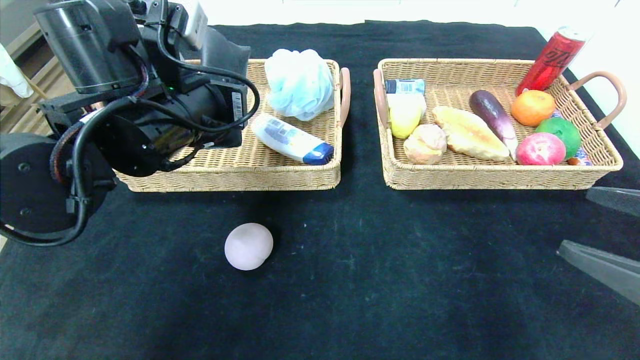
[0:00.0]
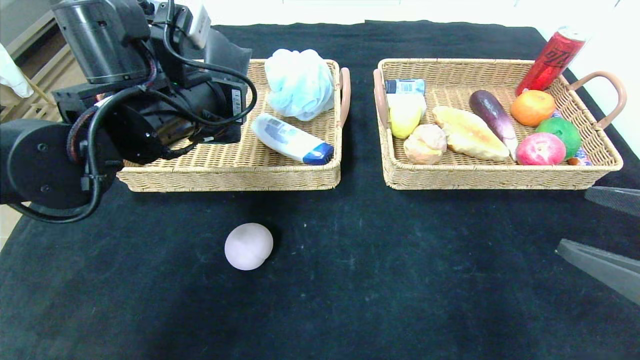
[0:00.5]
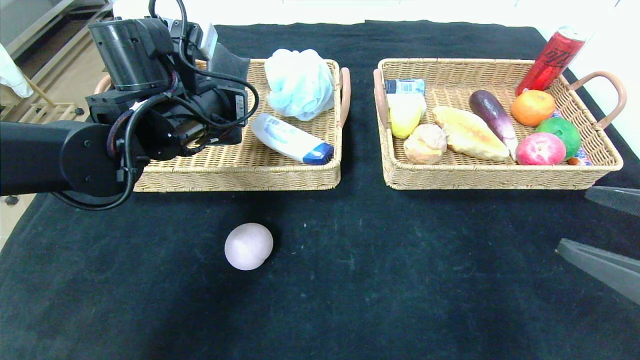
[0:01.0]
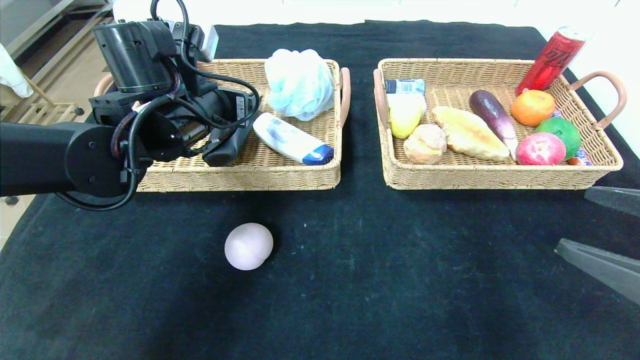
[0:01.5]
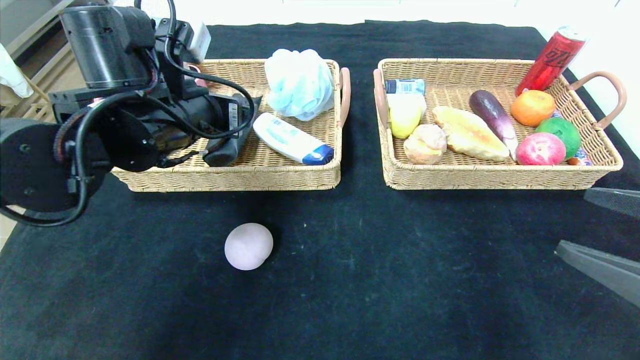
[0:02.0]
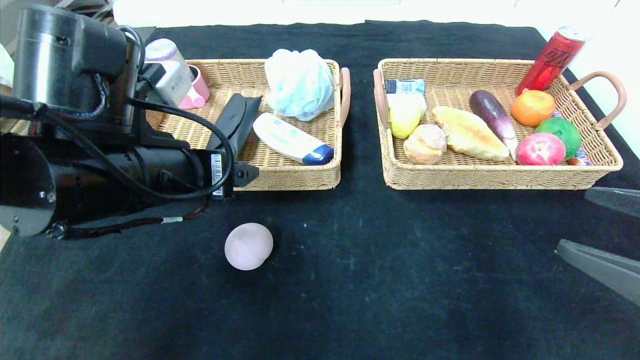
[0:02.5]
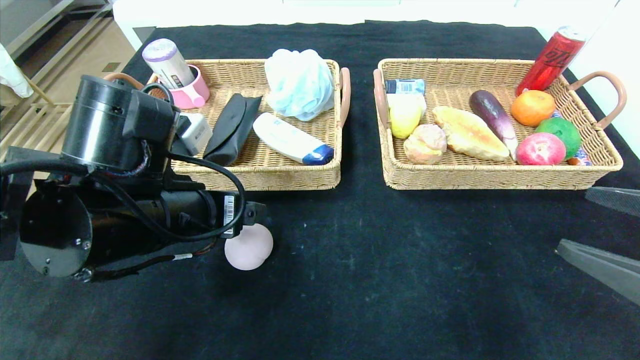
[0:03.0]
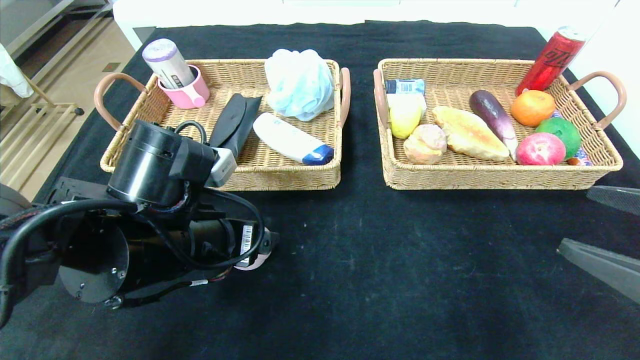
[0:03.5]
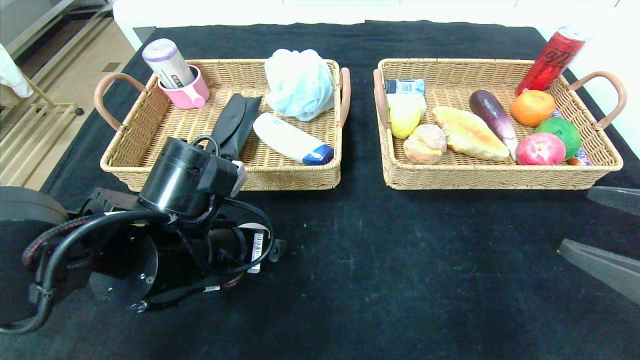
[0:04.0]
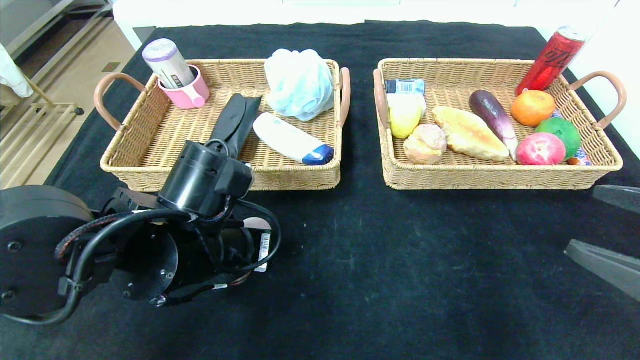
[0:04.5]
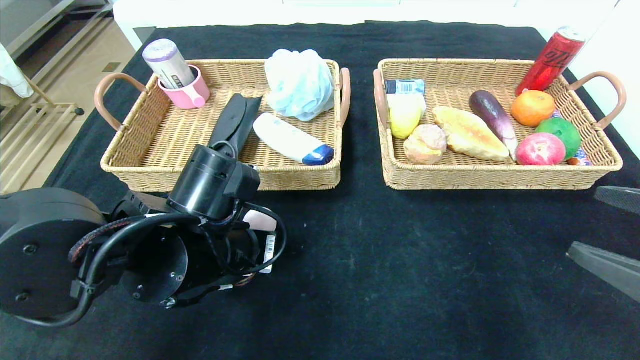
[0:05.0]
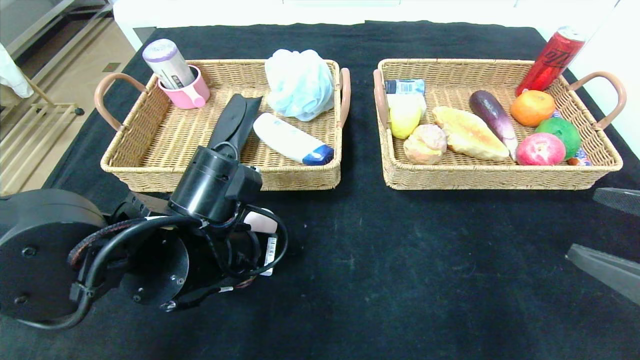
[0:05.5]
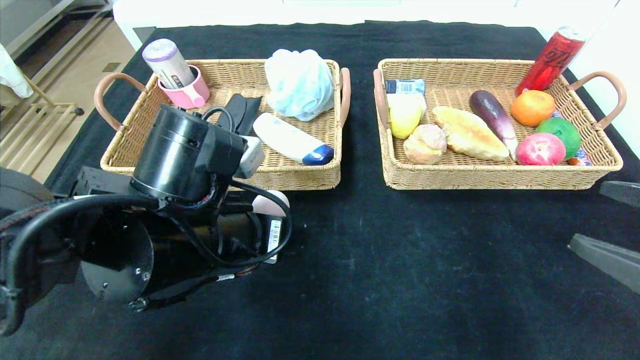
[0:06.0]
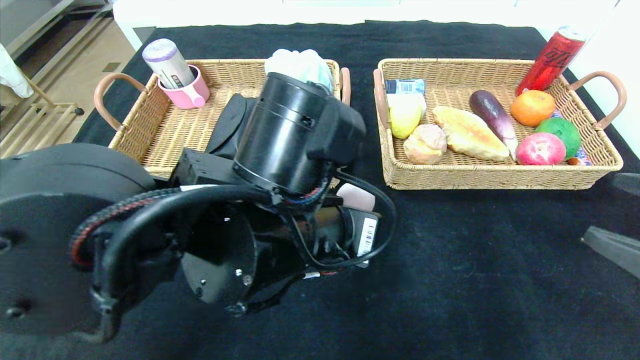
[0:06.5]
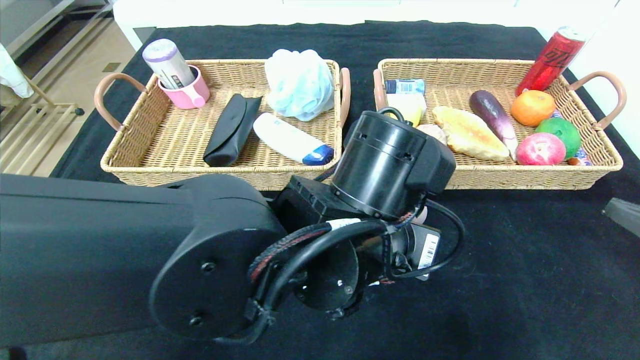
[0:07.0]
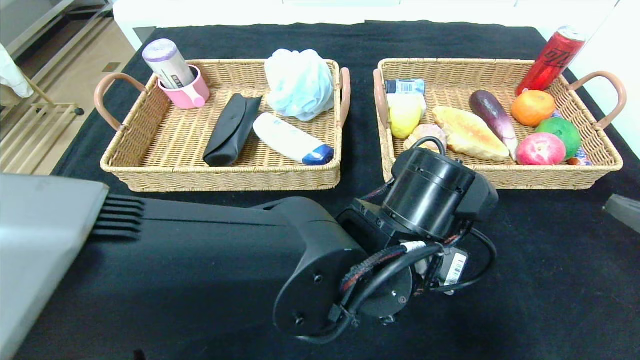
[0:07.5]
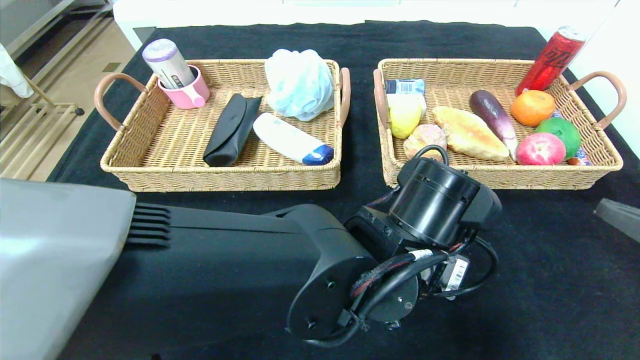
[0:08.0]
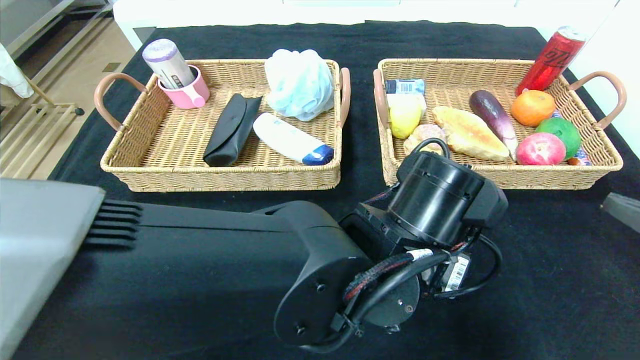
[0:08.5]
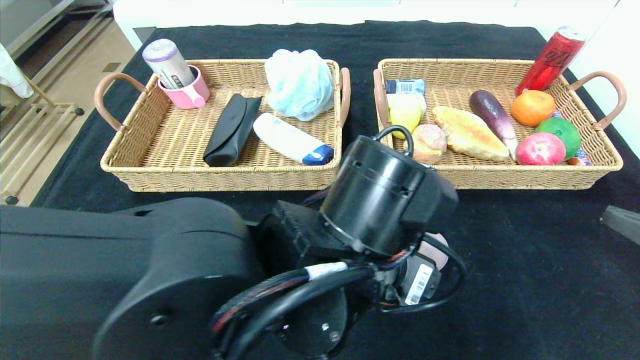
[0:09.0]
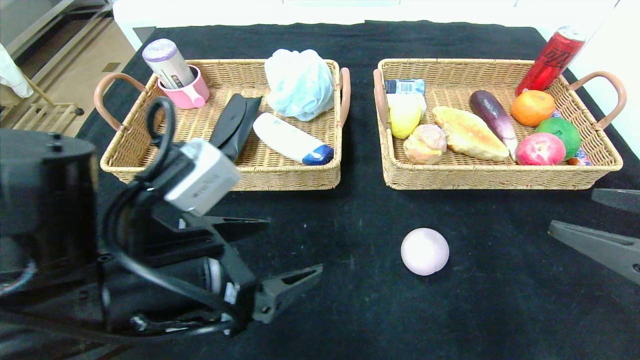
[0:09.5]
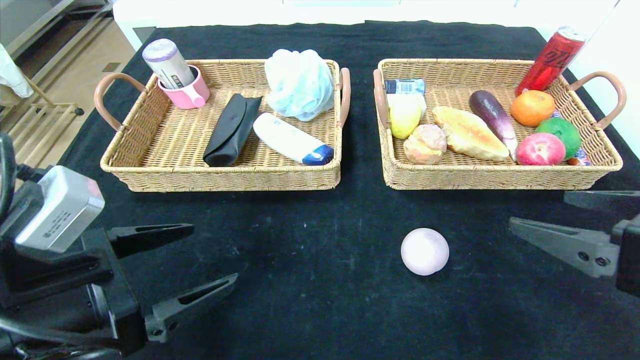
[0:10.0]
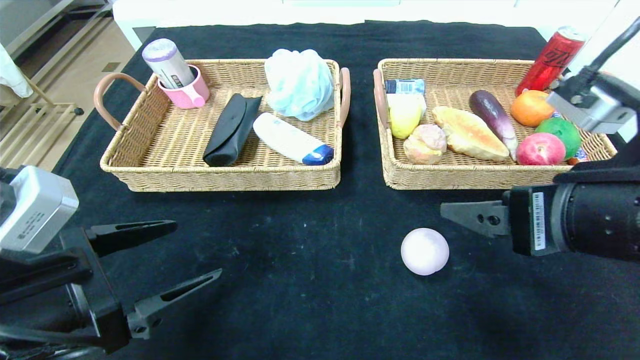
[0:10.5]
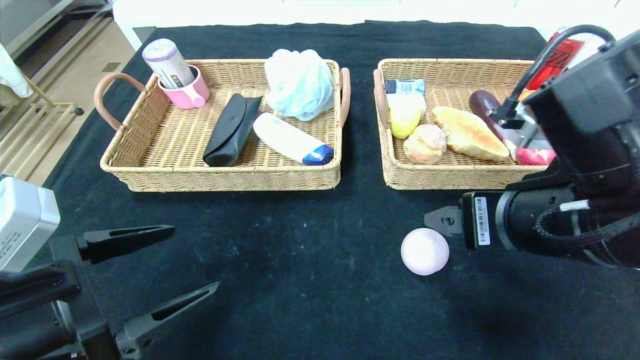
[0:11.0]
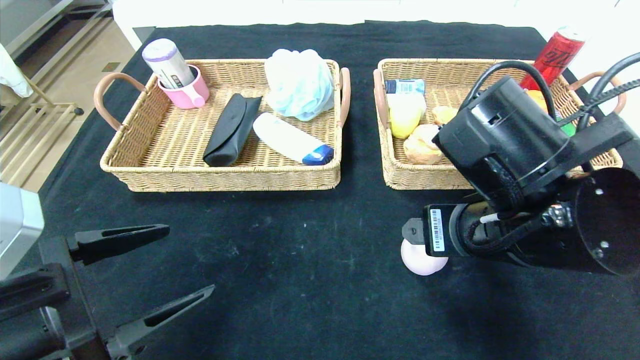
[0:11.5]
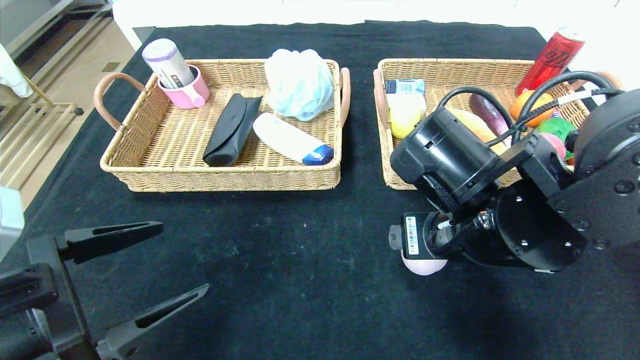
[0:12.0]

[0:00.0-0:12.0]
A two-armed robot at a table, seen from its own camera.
Step, 0:00.0 to 0:02.5: Pick up the glasses case and put it in the left basket.
Step, 0:03.0 to 0:09.0: Place the peach in the center of the table.
0:00.0 to 0:02.0: The left gripper opens up.
0:02.0 to 0:04.0: The left gripper goes about 10 cm downward and backward.
0:04.0 to 0:06.0: The left gripper closes its fingers.
0:06.0 to 0:08.0: The left gripper moves to the right, some 20 cm, and opens its fingers.
0:08.0 to 0:10.0: The right gripper heads to the left, covering some 5 cm, while the left gripper moves to the left, approximately 30 cm, and opens.
0:10.0 to 0:12.0: The right gripper moves to the left and forward, approximately 15 cm.

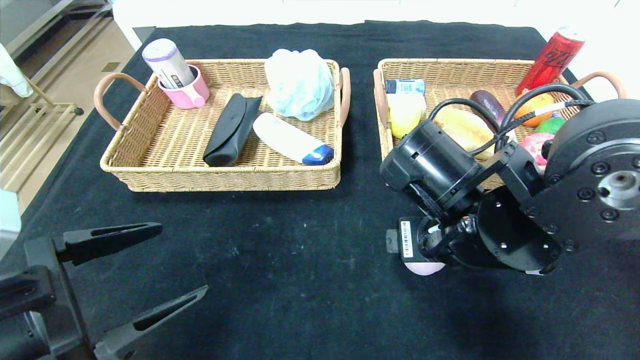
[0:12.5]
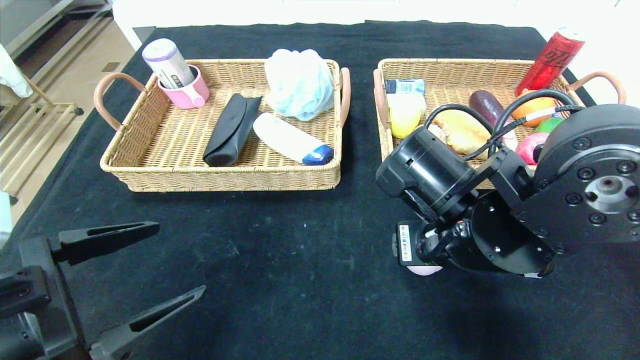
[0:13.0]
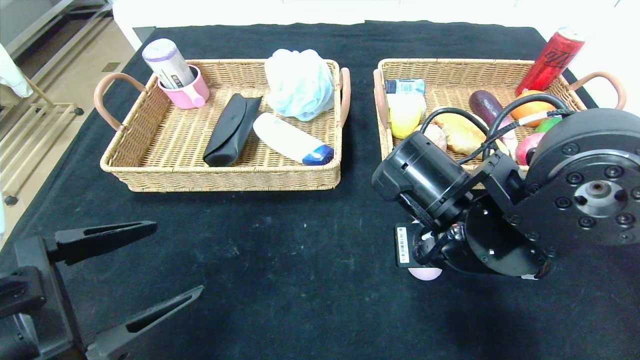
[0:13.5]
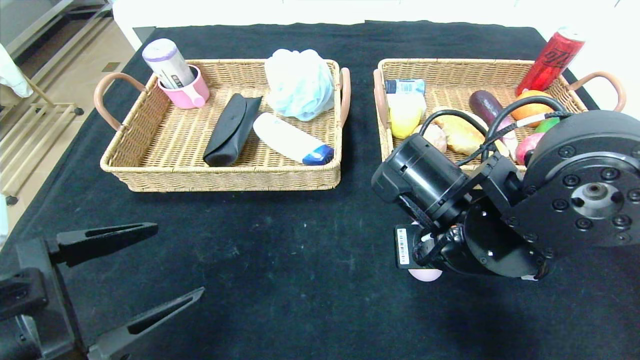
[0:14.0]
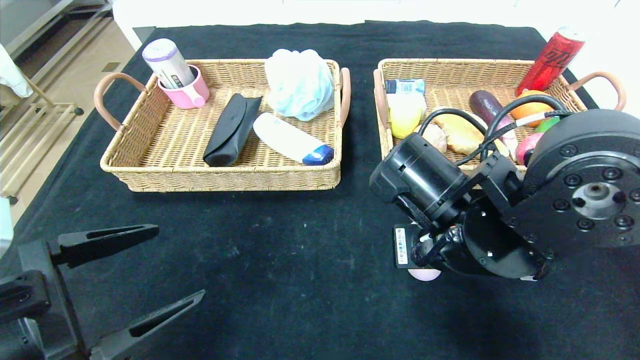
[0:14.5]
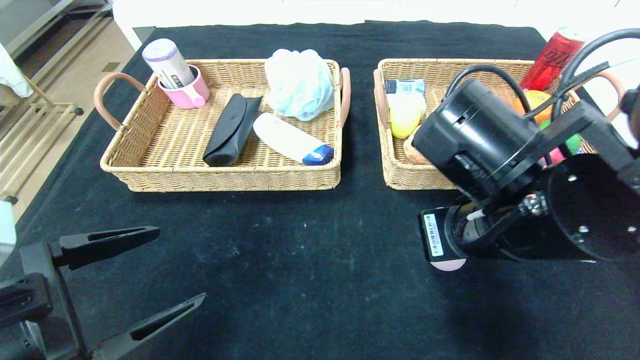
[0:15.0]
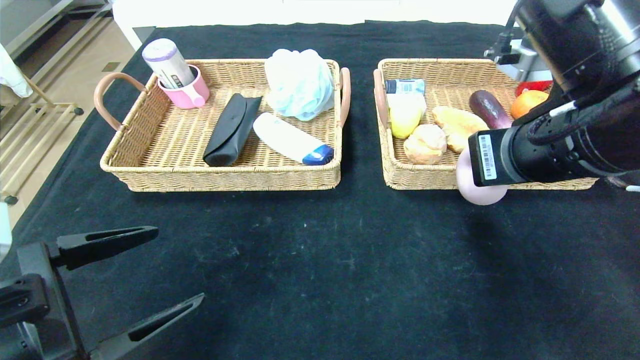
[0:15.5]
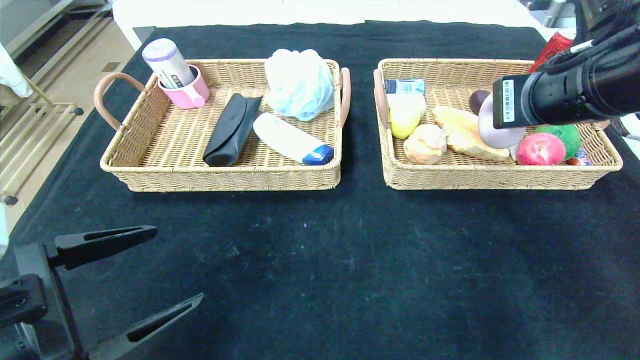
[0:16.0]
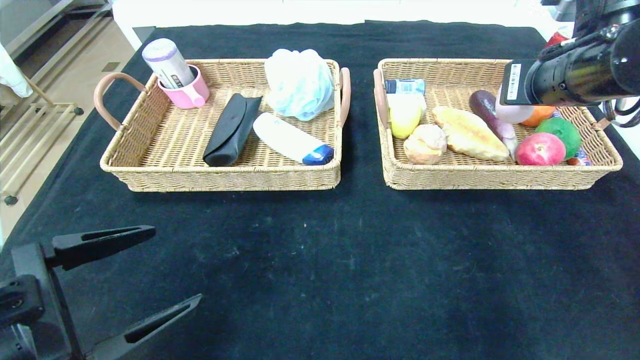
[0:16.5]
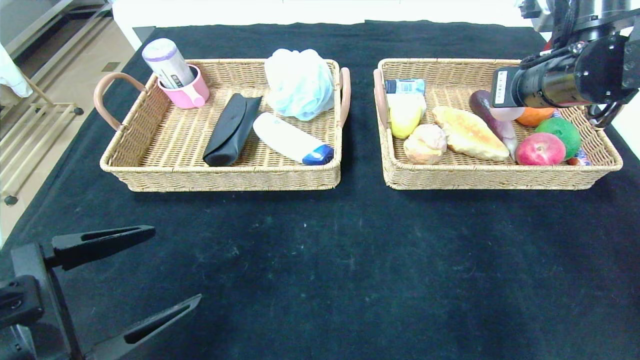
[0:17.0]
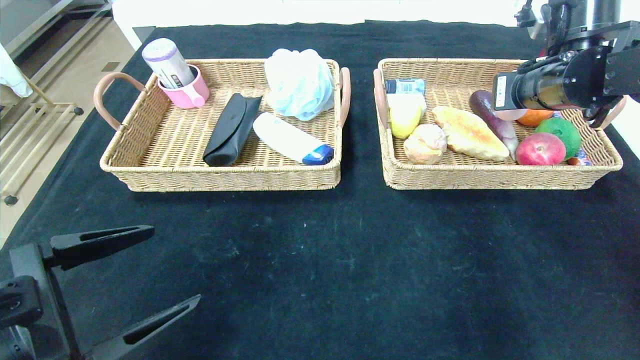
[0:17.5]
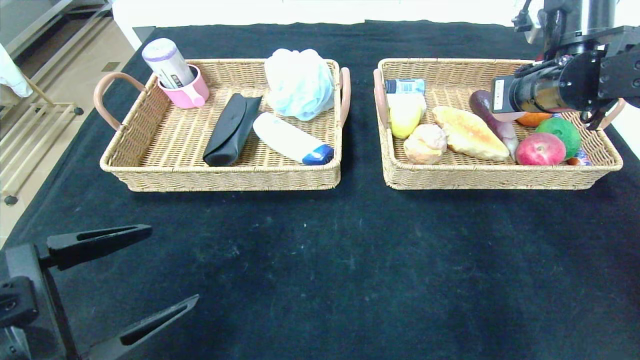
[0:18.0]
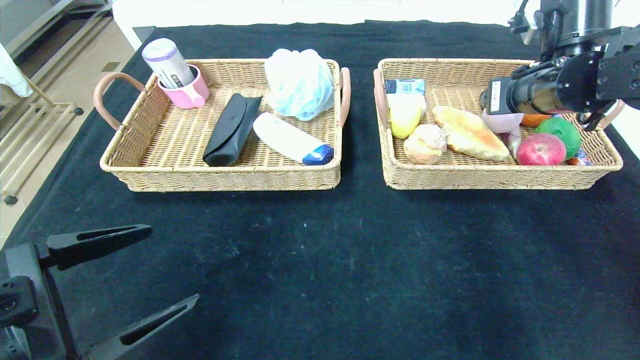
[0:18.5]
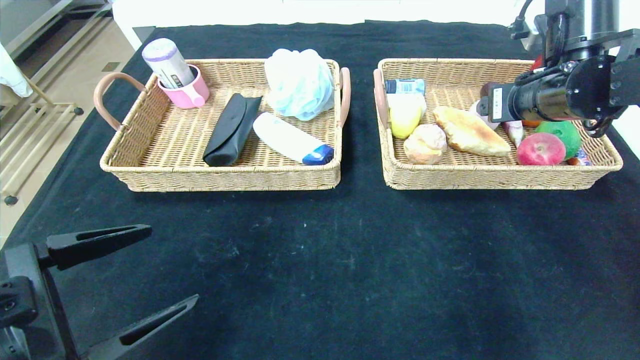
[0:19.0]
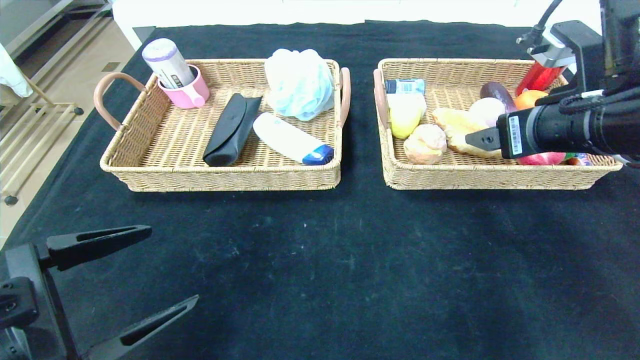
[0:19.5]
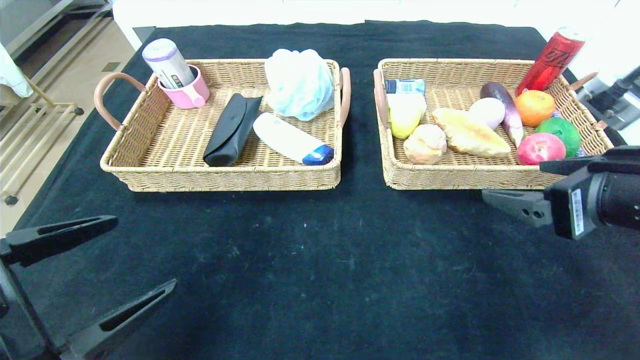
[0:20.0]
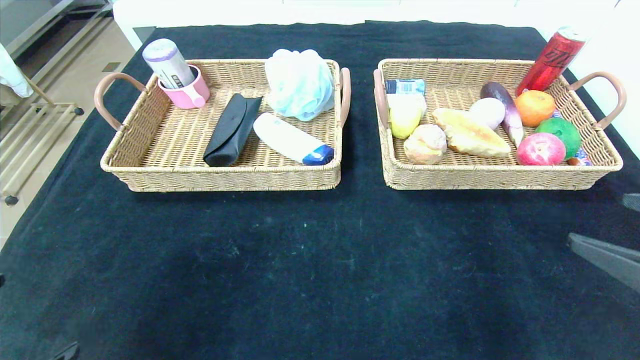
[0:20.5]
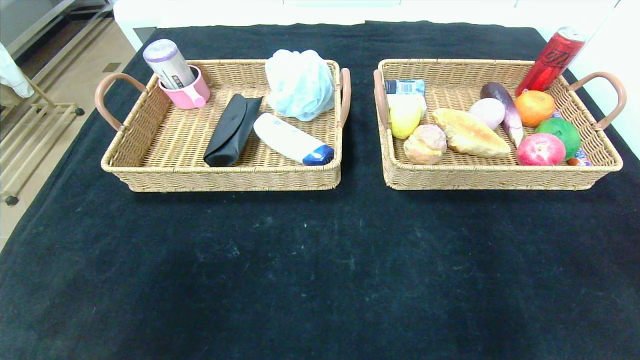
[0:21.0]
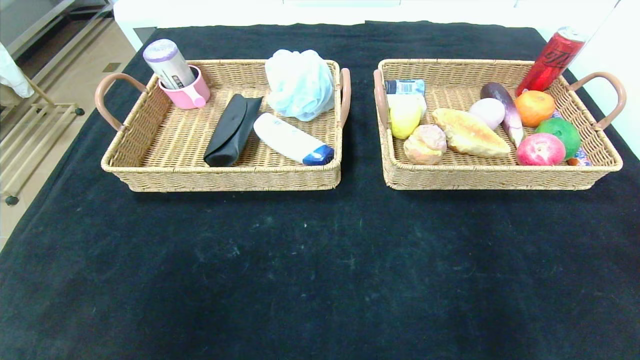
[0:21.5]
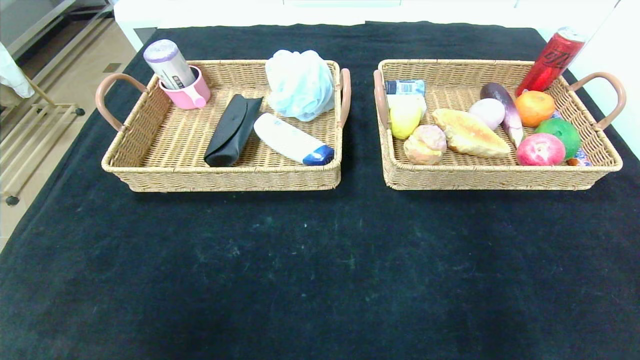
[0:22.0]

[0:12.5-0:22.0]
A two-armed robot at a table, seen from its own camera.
Step, 0:12.5 to 0:20.0: Pick up the peach and put it in the right basket.
0:12.5 to 0:14.5: The right gripper closes its fingers.
0:14.5 to 0:16.5: The right gripper is displaced to the right, upward and forward by roughly 20 cm.
0:16.5 to 0:18.0: The right gripper heads forward, covering roughly 5 cm, and opens.
0:18.0 to 0:20.0: The right gripper goes approximately 20 cm backward, and opens up.
0:20.0 to 0:22.0: The right gripper heads backward and to the right, covering about 25 cm; the left gripper heads backward, covering about 20 cm.
